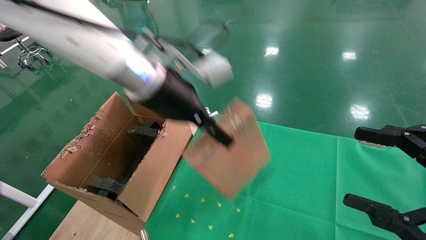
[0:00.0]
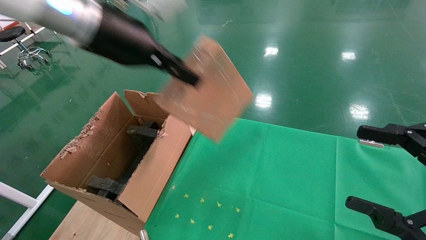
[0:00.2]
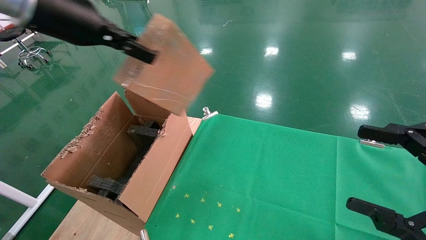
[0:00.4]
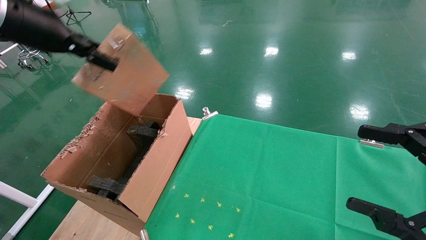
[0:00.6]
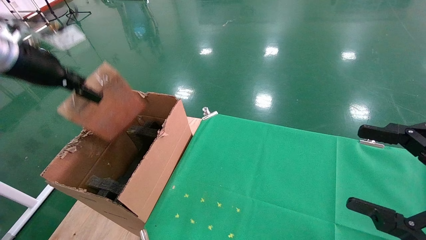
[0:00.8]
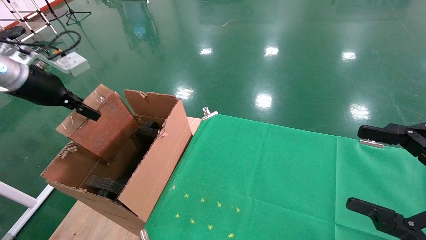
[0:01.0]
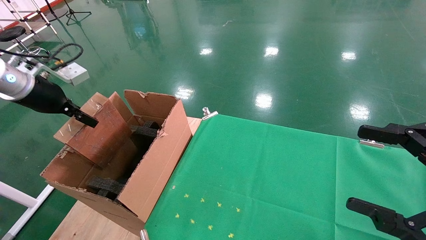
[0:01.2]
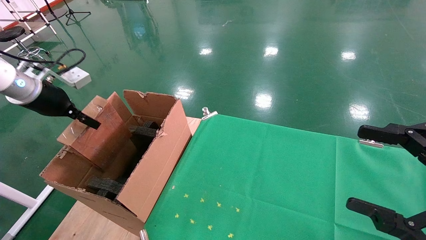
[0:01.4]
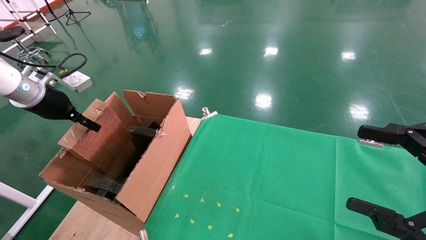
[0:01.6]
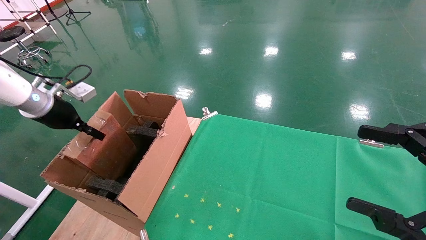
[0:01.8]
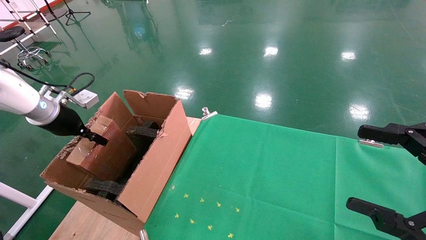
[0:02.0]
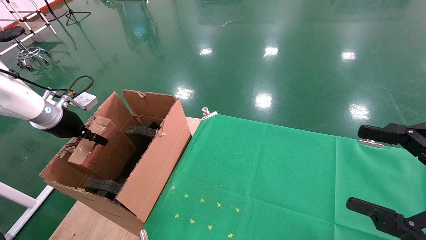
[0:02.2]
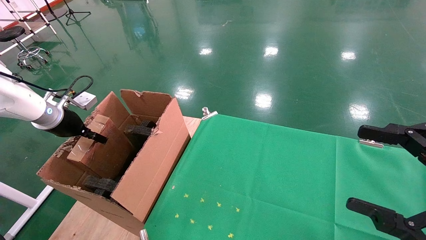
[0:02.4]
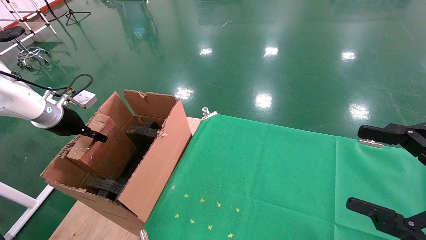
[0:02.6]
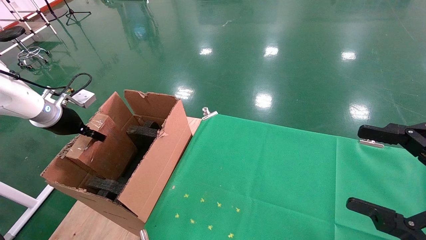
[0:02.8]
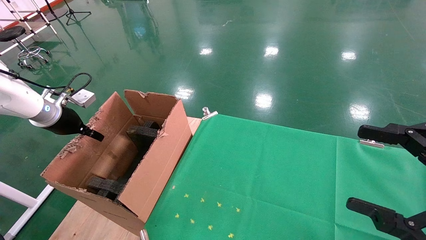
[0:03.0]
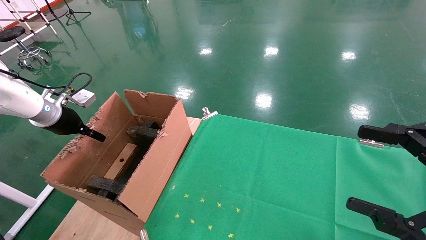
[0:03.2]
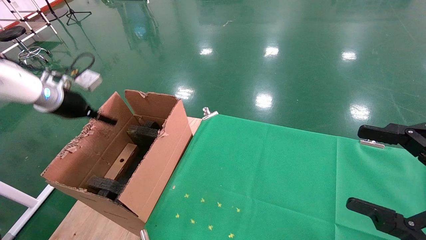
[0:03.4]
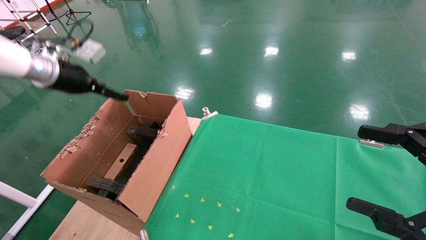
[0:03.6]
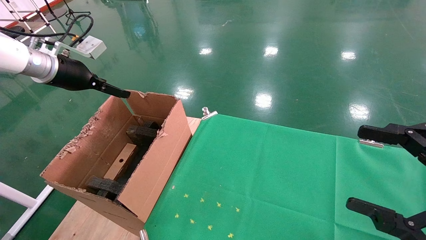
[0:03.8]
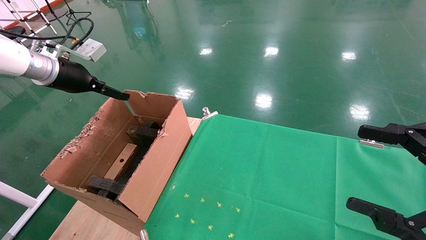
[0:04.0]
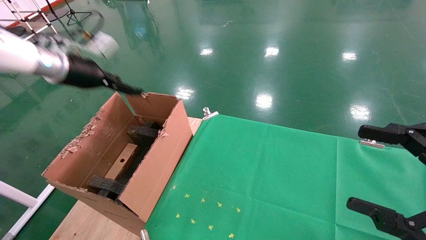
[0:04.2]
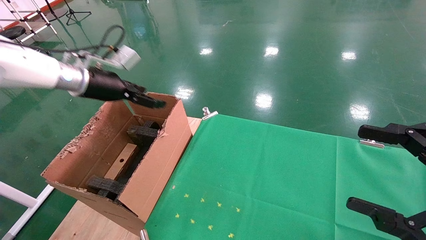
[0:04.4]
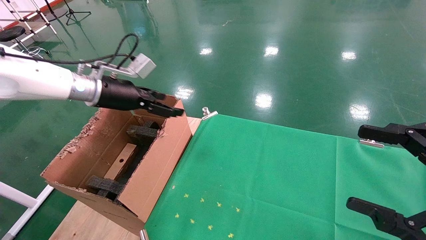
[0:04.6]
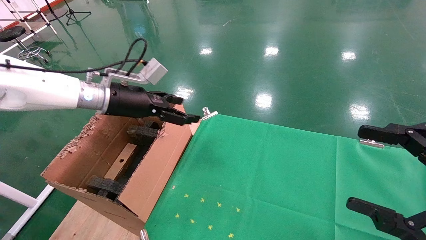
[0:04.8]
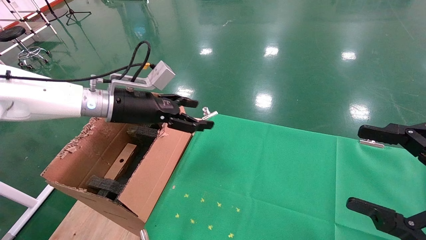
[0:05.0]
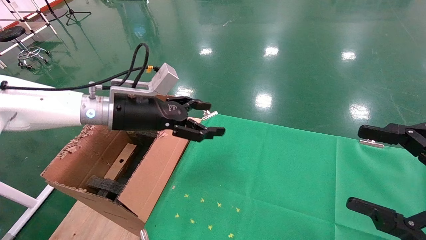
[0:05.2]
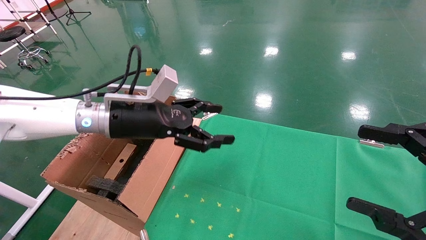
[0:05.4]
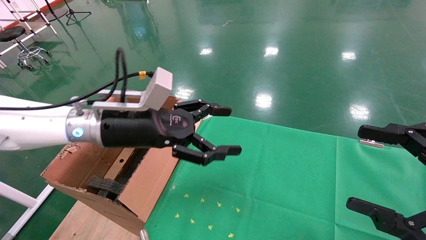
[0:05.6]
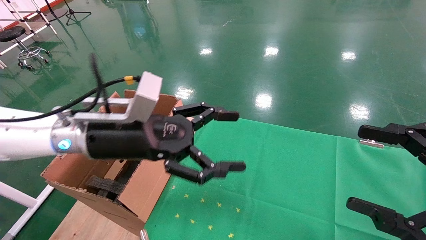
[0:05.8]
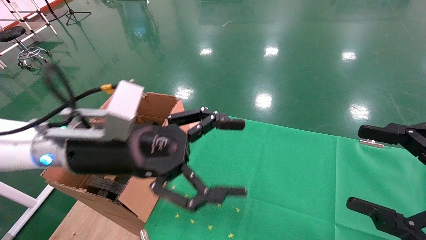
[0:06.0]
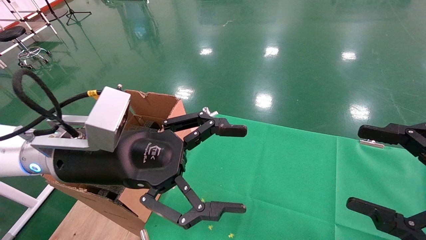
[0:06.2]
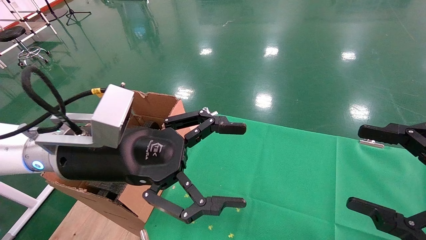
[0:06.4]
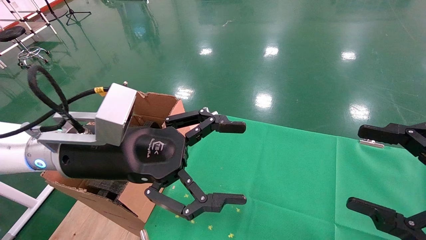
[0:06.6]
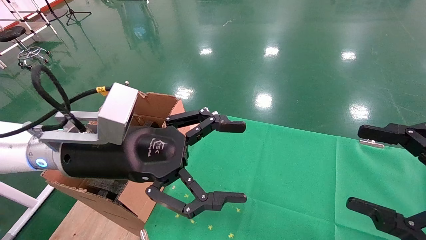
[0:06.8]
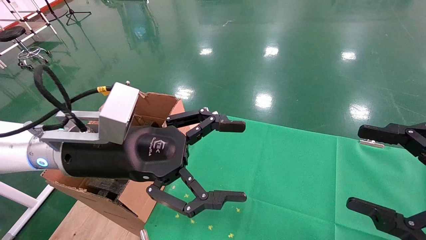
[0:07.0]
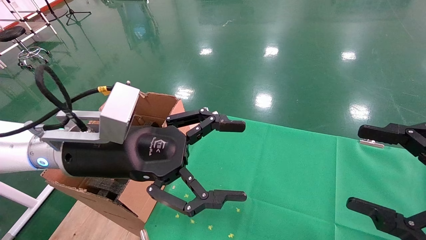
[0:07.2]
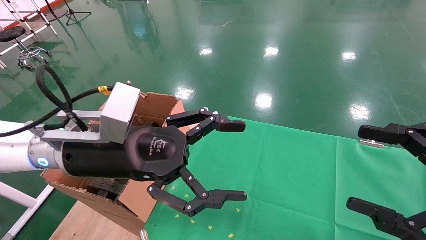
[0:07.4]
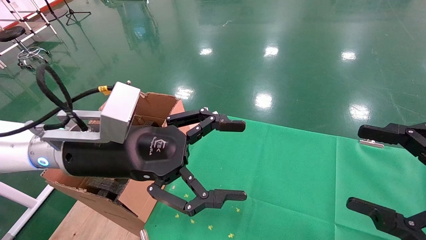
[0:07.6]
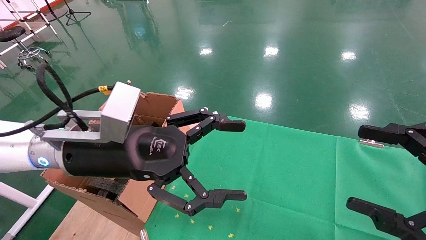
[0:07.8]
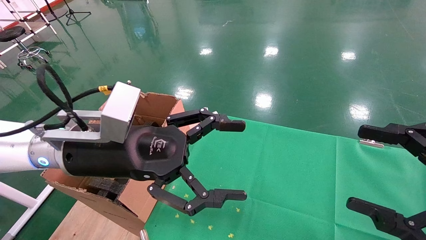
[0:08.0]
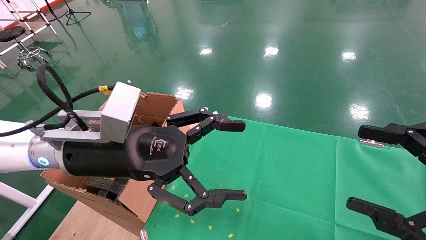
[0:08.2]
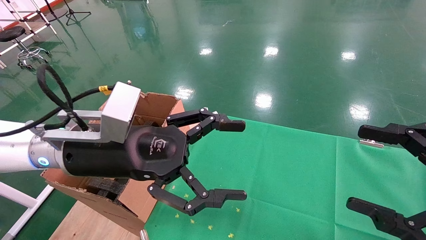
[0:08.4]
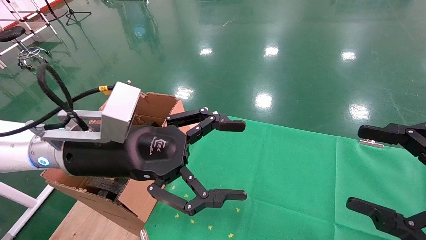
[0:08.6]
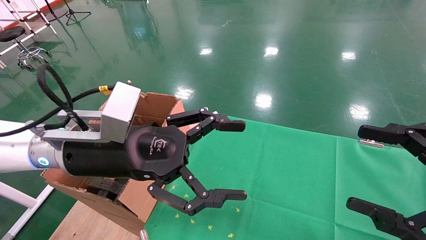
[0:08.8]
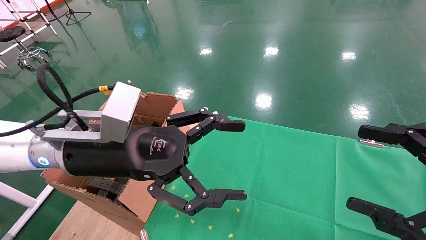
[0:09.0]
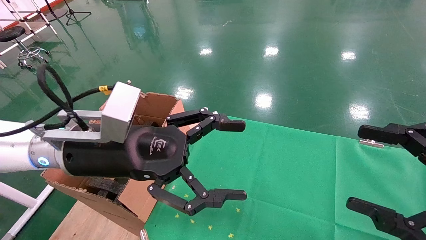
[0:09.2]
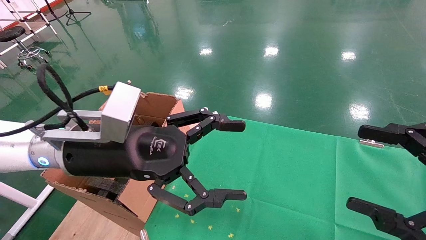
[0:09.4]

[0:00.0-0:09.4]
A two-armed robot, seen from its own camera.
Task of the whole recording: using a robotic arm to pick up a cardboard box and palace it the carton.
Step, 0:00.0 to 0:03.0: Place the mouse and the power cord paper box into the container.
0:00.0 to 0:01.6: The left gripper heads to the left, covering approximately 30 cm.
0:01.6 to 0:03.2: The left gripper opens.
0:03.2 to 0:04.8: The left gripper shifts roughly 20 cm to the right, and opens up.
0:04.8 to 0:06.2: The left gripper moves backward and to the right, approximately 20 cm.
0:06.2 to 0:09.4: Both grippers stay about where they are.
